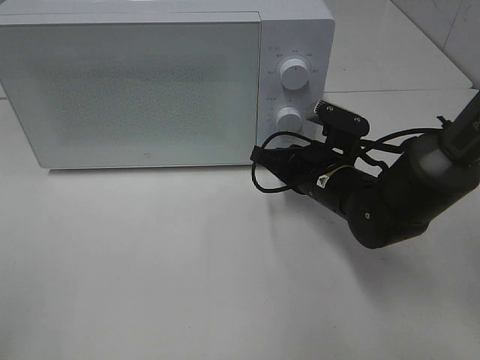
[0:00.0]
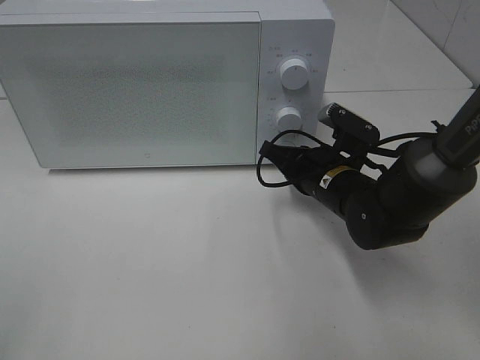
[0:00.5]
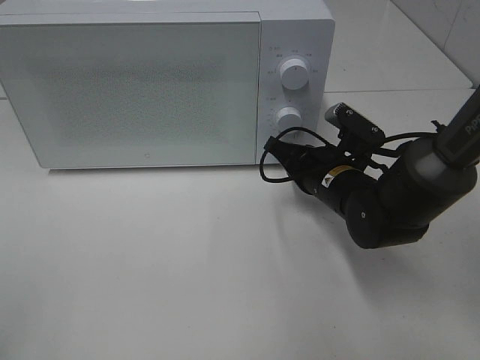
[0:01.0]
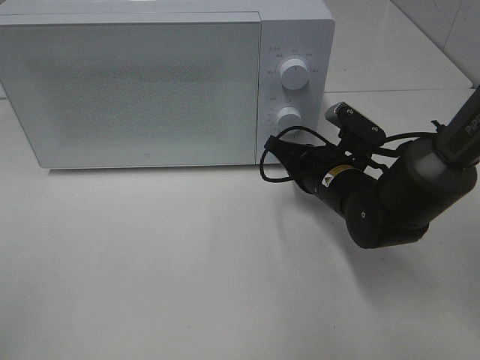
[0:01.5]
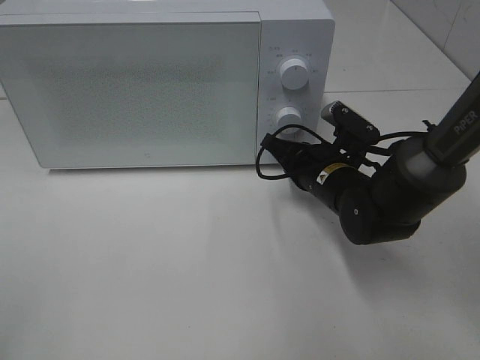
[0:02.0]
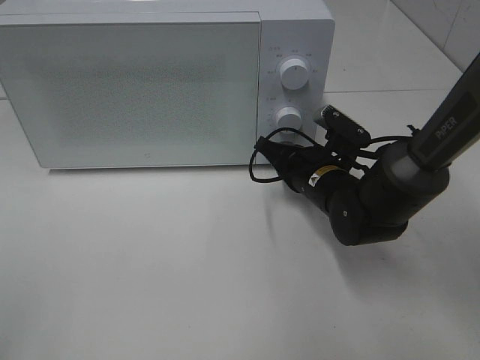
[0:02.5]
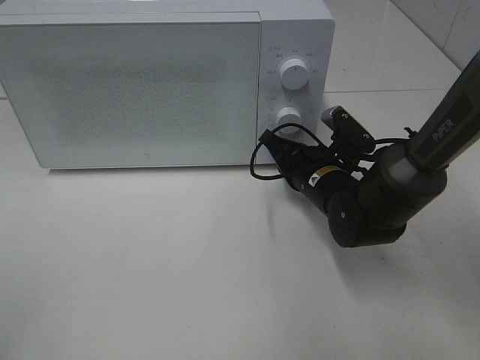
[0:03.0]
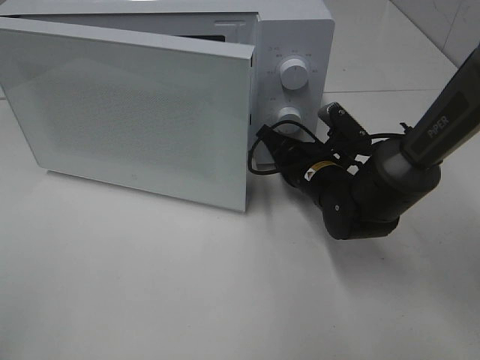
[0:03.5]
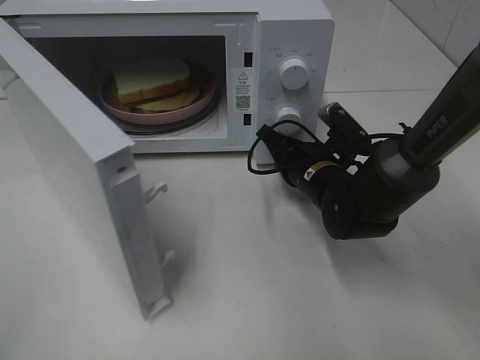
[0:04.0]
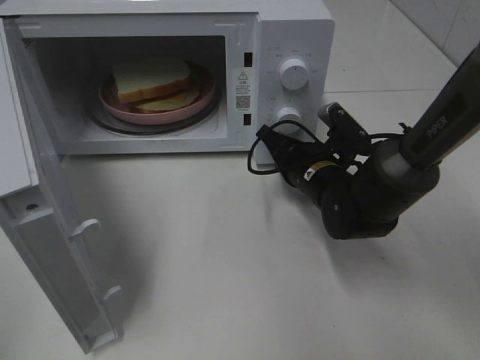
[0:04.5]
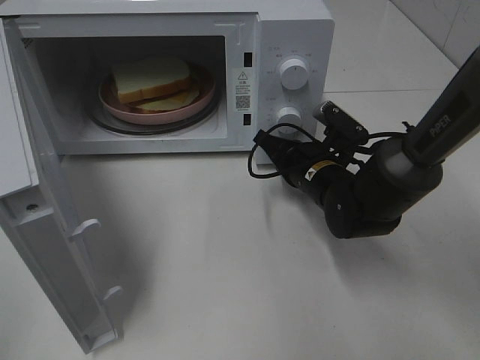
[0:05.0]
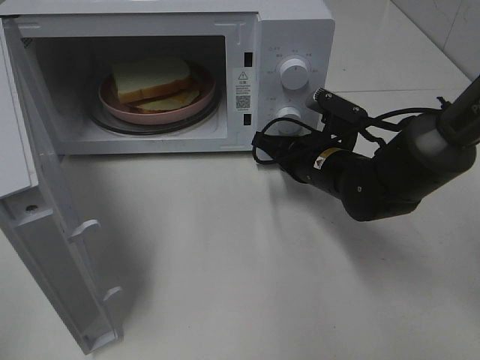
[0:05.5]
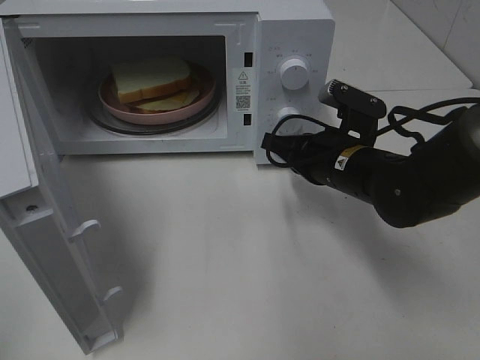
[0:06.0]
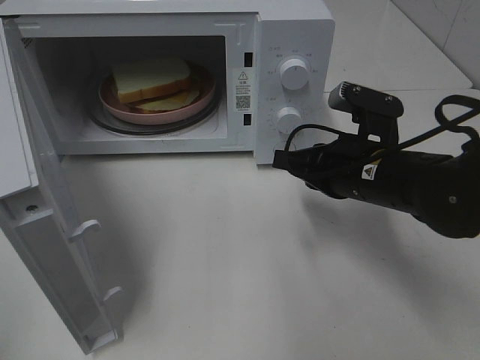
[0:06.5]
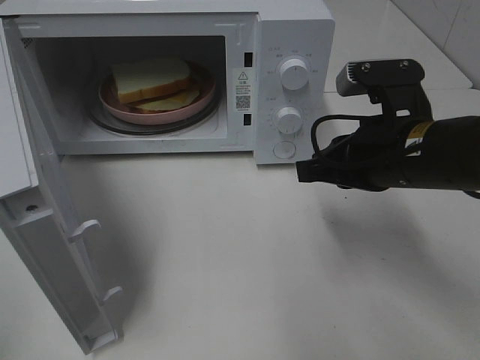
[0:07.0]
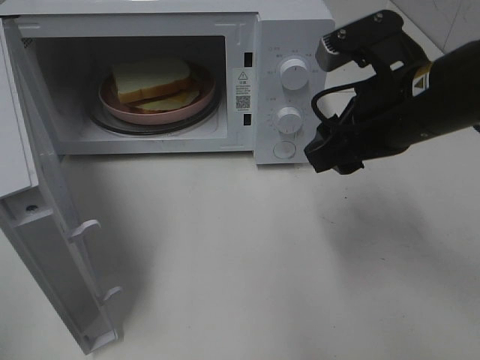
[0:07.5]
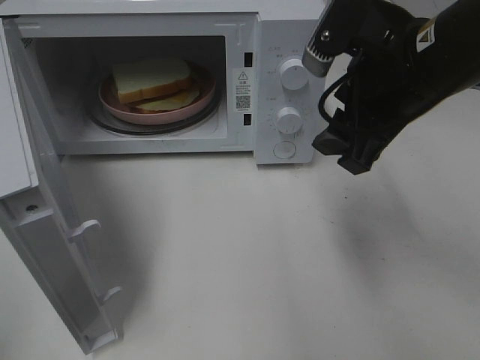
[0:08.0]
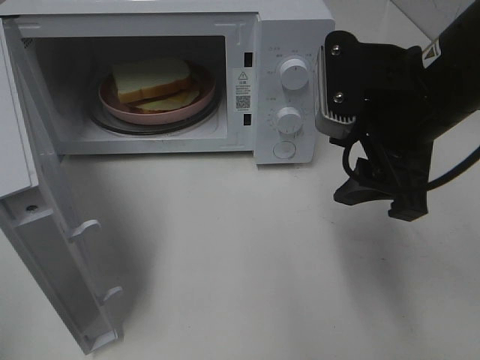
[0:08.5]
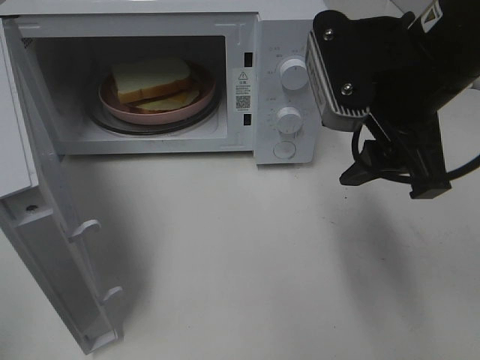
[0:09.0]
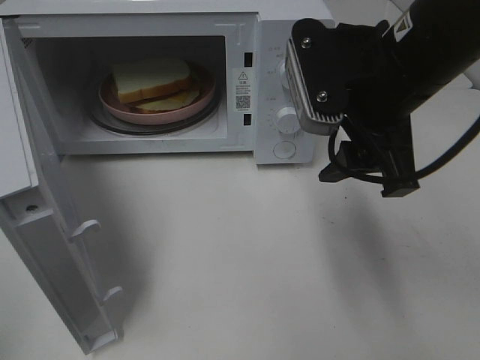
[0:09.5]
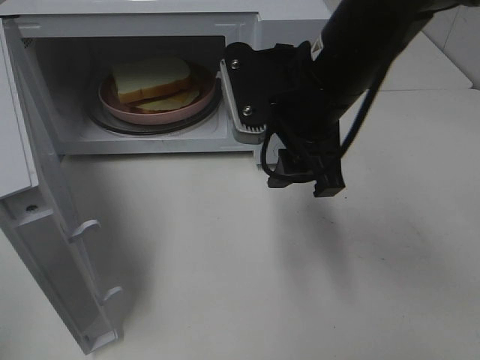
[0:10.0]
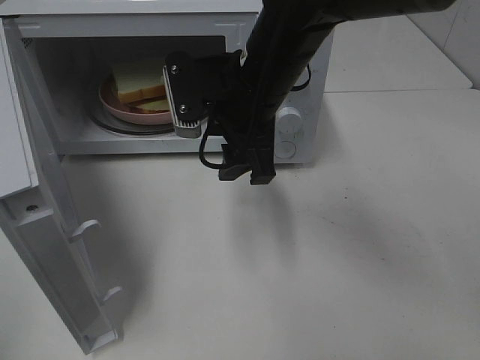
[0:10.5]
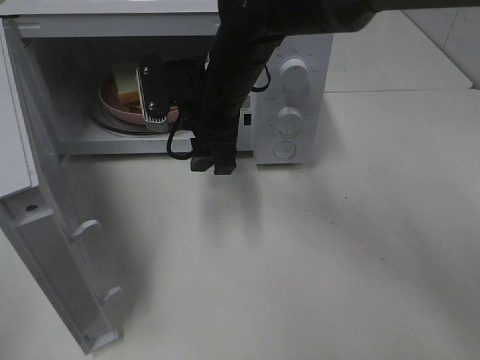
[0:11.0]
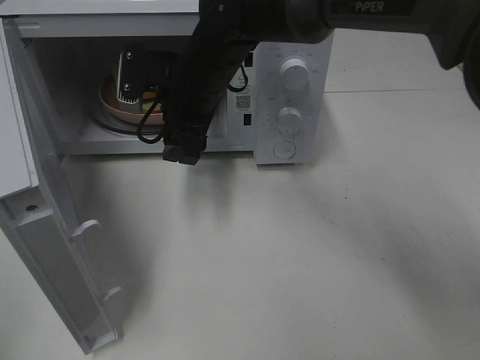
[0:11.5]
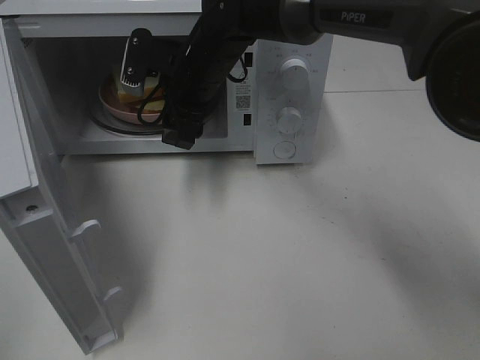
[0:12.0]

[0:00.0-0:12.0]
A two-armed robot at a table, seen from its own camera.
Task of the whole recording: Heat Sandwich.
Step, 0:00.0 to 0:06.0: Right hand: press the switch.
0:00.0 to 0:02.0: There are only small adjustments of the grippers.
0:04.0 to 0:06.0: The right gripper ends up approximately 5 cm from where it was.
0:06.0 to 0:08.0: The right gripper goes some 15 cm upward, and opens its fingers.
0:08.0 to 0:10.0: The right gripper travels to the left by some 10 cm.
0:10.0 to 0:12.0: The right gripper goes about 20 cm forward, to the left and downward.

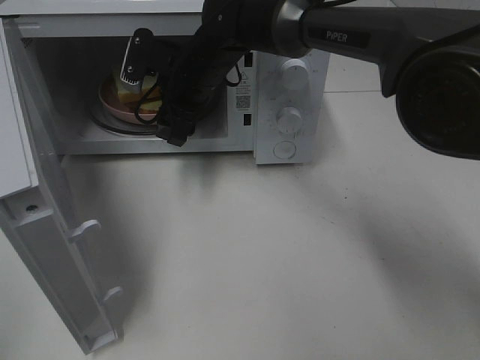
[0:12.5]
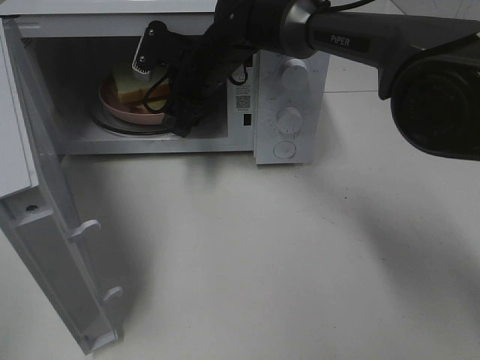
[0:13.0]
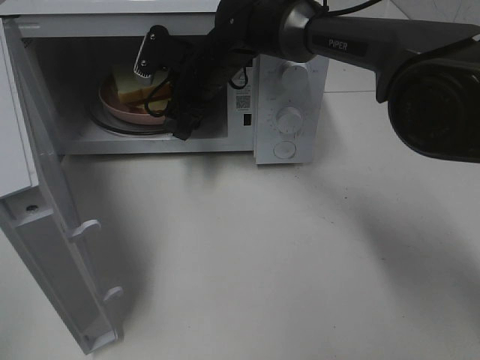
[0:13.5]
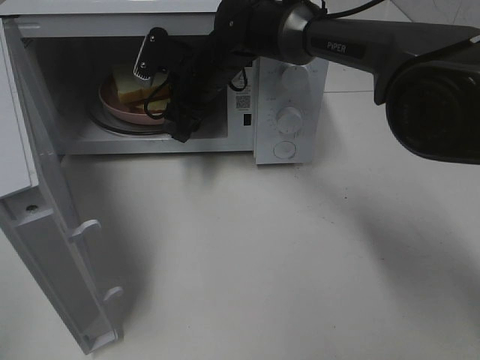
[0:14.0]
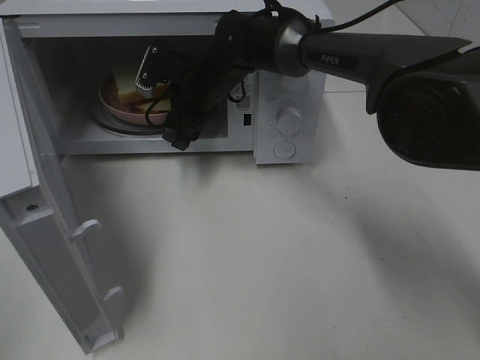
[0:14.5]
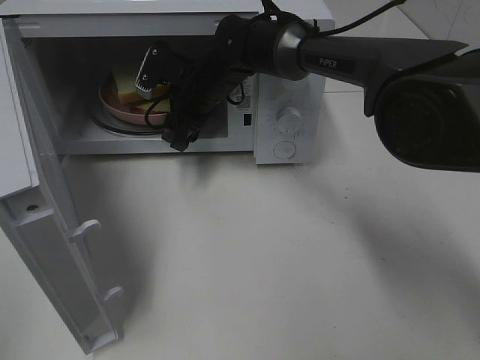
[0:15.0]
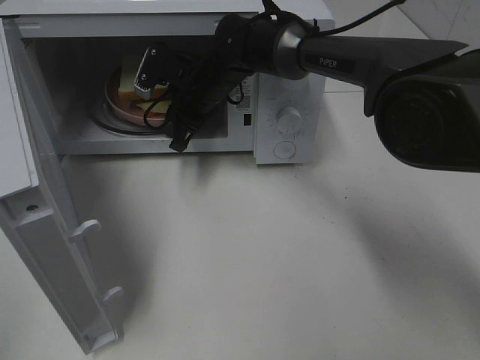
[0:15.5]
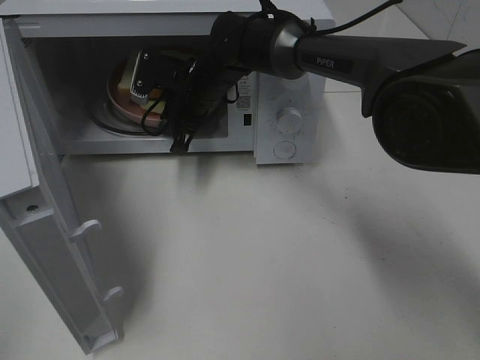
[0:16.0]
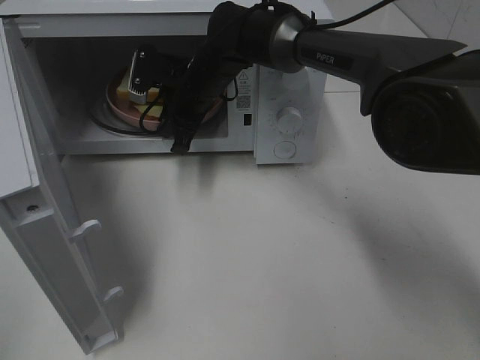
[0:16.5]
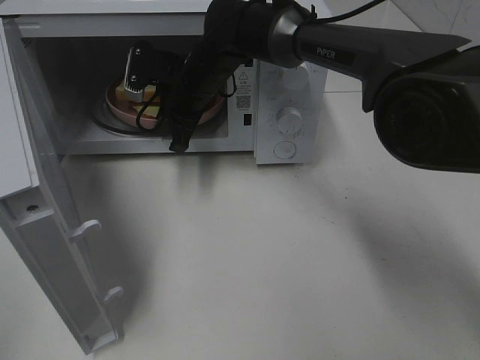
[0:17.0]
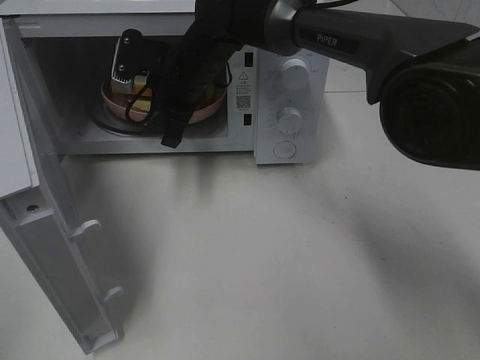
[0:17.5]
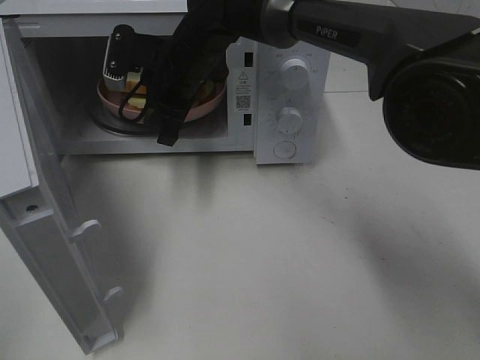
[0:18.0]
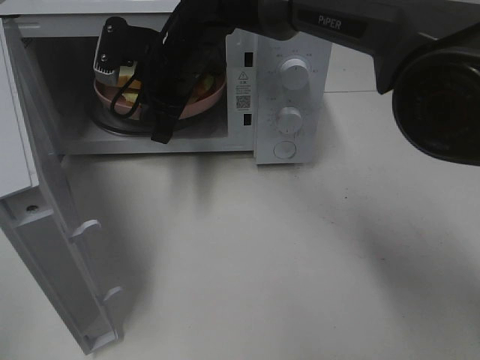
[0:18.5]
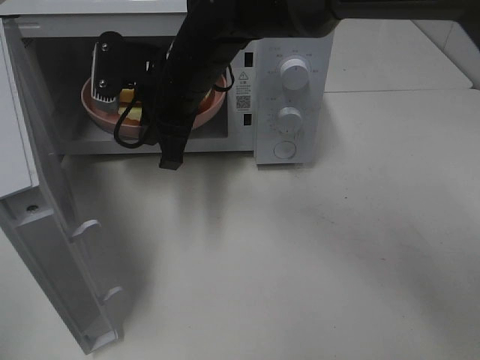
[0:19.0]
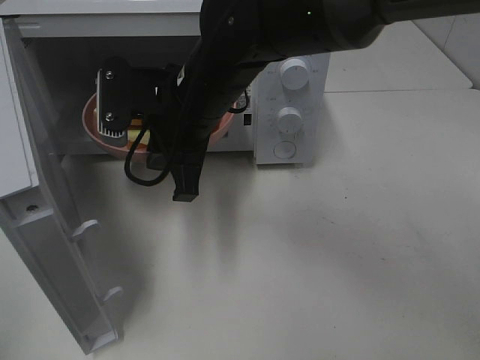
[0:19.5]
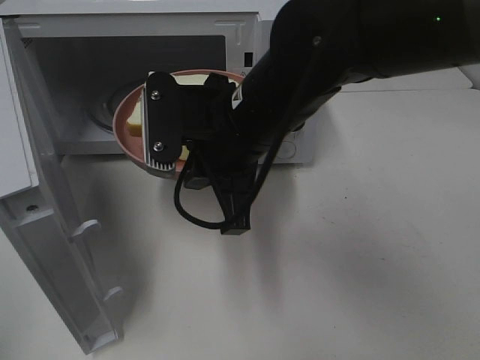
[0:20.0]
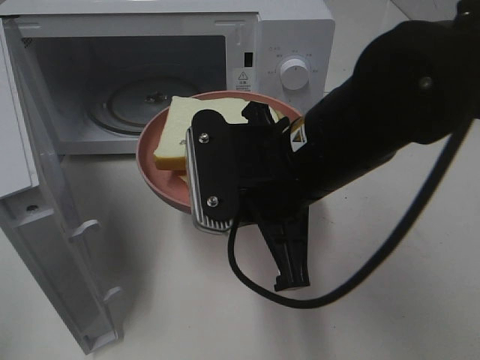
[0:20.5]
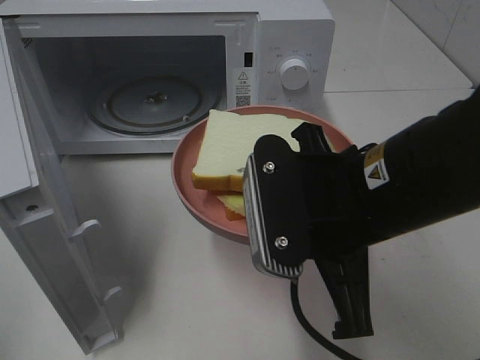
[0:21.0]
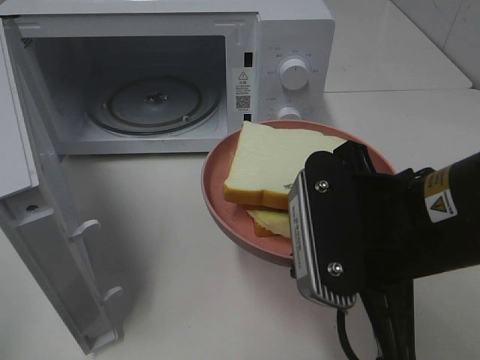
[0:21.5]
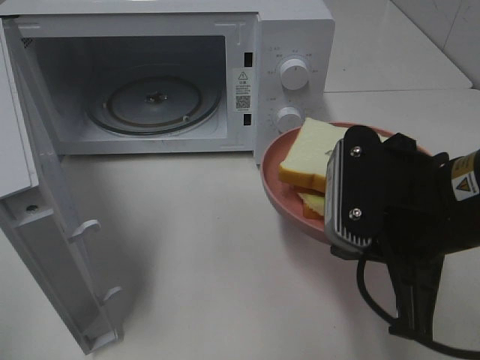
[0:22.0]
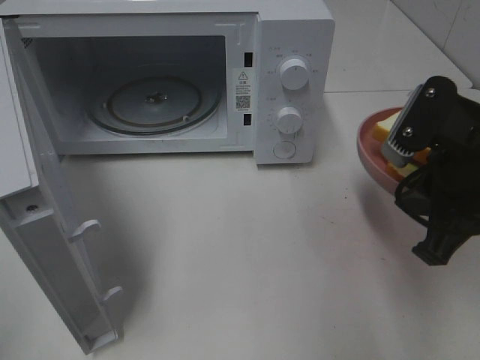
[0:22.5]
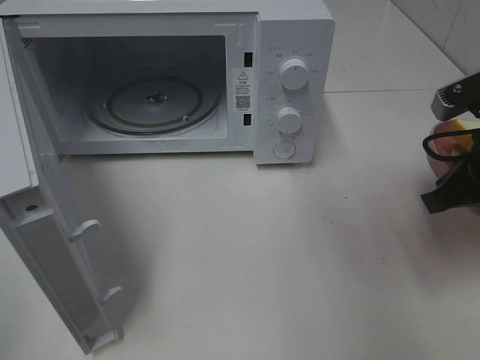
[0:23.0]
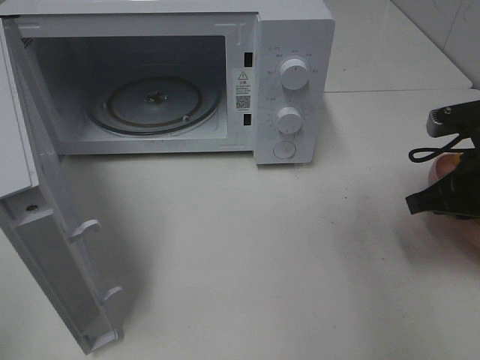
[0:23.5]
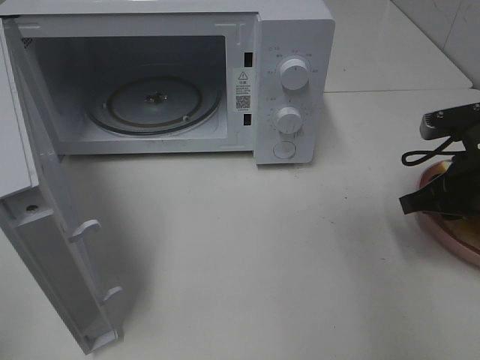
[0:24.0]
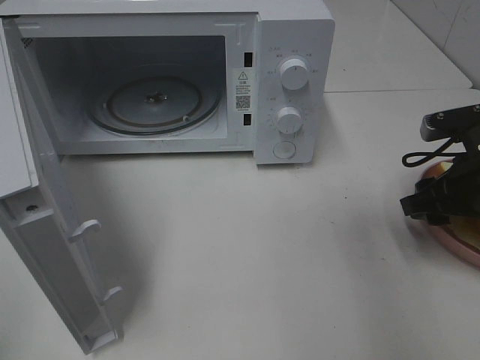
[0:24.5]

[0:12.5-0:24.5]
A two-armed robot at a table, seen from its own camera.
Task of the whole recording: Heat Sandwich.
Step, 0:12.5 to 0:17.0: Right hand: grab the plate with the sandwich.
0:12.5 to 0:14.5: There are only small adjustments of the grippers.
0:14.5 to 0:16.5: The right gripper closes its fingers.
0:16.5 to 0:18.5: The right gripper moves upward, about 5 cm.
0:18.5 to 0:20.5: The right gripper is displaced backward and to the right by some 25 cm.
0:20.5 to 0:22.5: The right gripper shifts about 15 cm to the right.
0:22.5 to 0:24.5: The right gripper goes some 10 cm downward, to the right and forward, and opens.

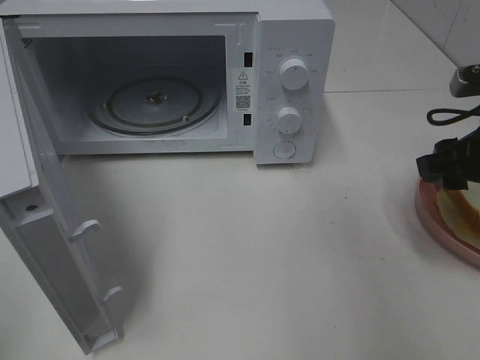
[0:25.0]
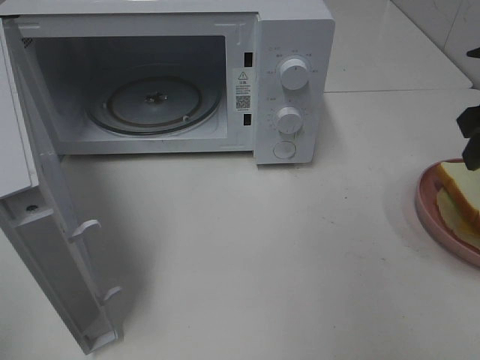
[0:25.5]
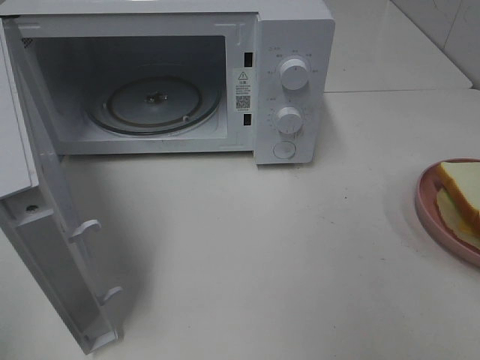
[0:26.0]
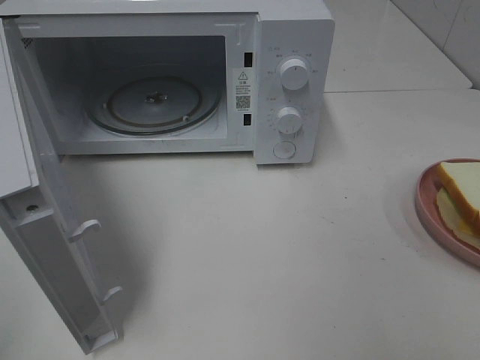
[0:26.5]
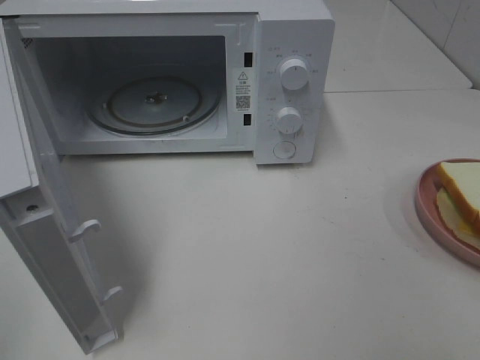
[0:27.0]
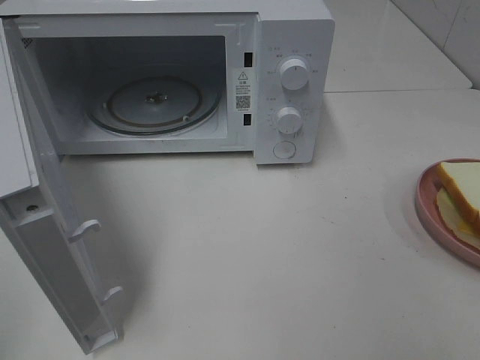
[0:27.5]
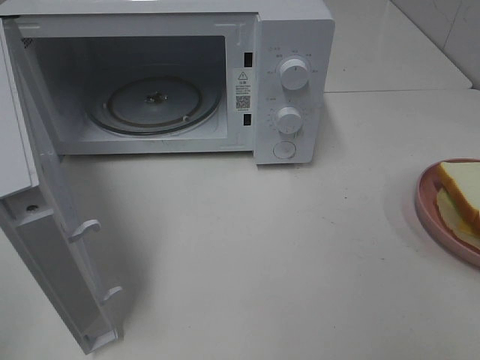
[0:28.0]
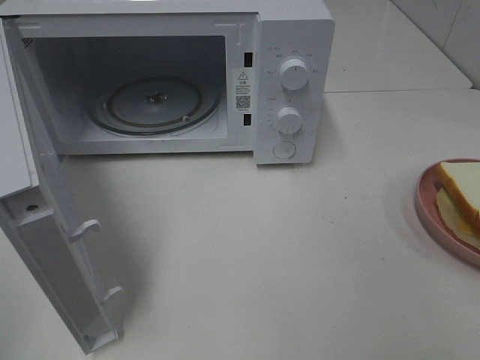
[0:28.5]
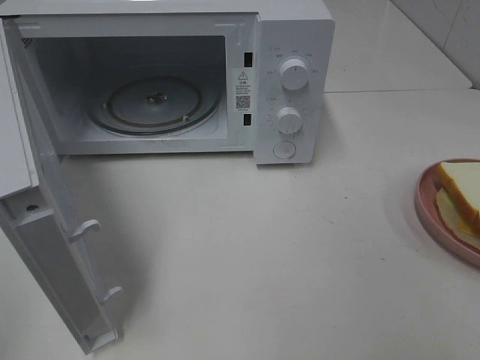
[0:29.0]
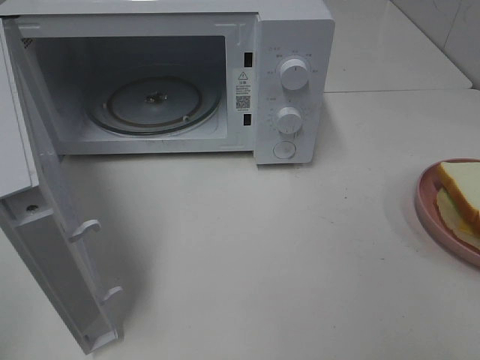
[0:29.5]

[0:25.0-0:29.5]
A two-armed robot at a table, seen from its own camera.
Task of the whole recording: Heat Sandwich.
0:25.0 to 0:27.0: The right gripper shifts roughly 30 cm backward and upward.
